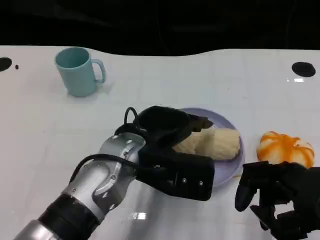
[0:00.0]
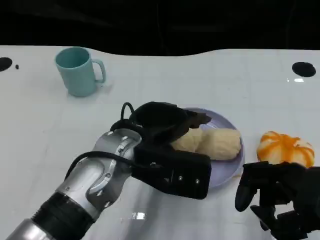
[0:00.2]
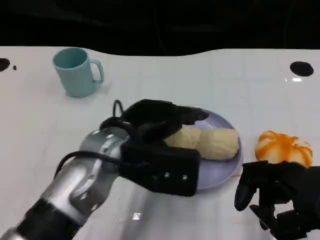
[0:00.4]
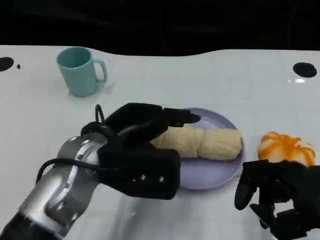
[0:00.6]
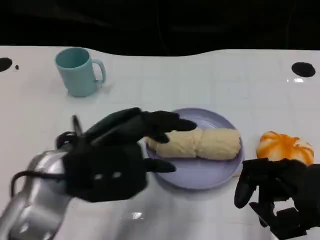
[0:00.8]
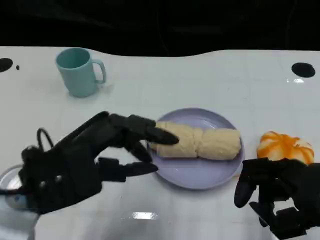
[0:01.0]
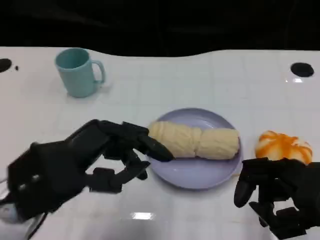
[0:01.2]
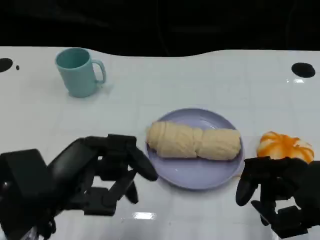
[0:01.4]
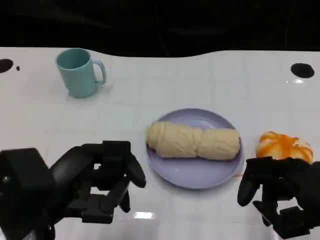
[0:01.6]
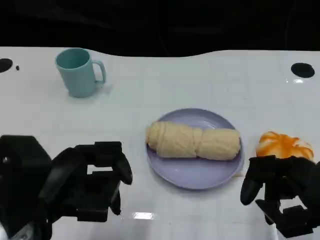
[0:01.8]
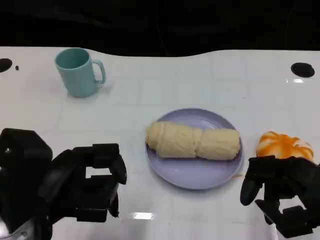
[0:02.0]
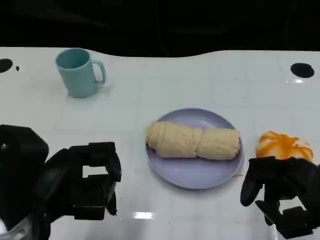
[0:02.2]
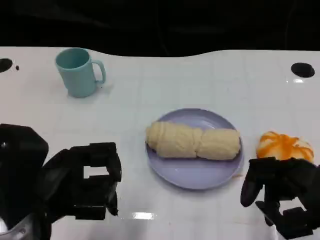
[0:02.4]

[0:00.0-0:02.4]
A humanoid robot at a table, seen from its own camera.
Task of the whole recording: Grasp the towel on the left side of the plate with the left hand and place it into the plate.
0:00.0 to 0:01.2: The left hand heads to the left and backward, covering some 15 cm.

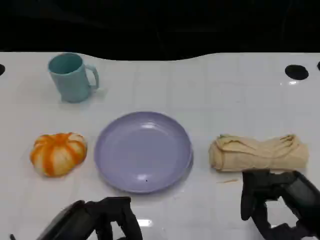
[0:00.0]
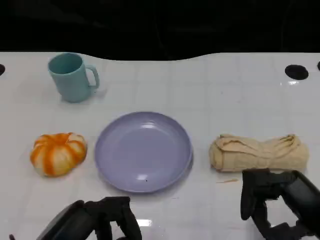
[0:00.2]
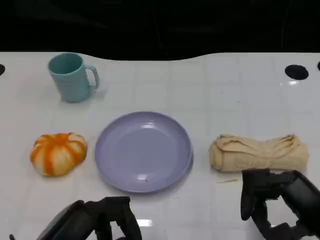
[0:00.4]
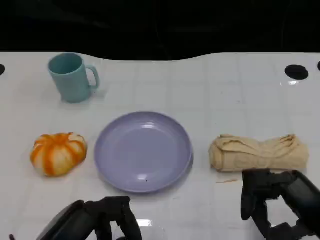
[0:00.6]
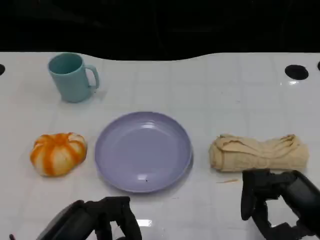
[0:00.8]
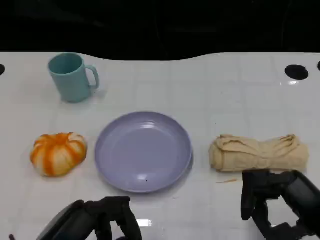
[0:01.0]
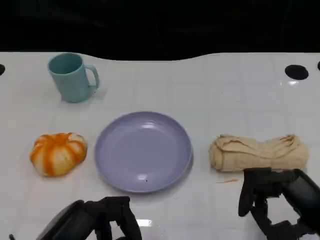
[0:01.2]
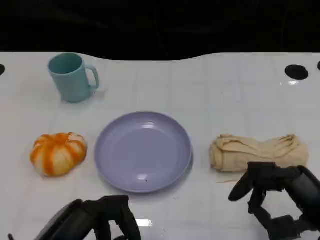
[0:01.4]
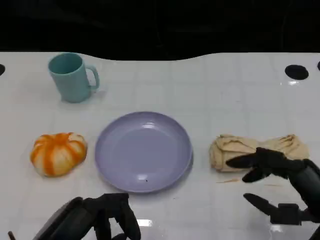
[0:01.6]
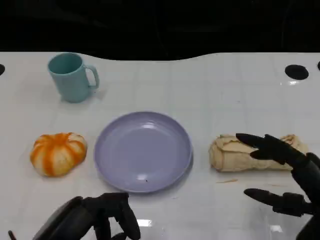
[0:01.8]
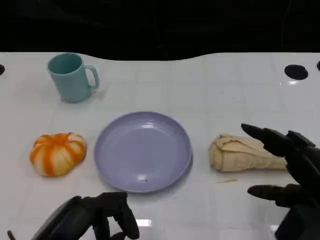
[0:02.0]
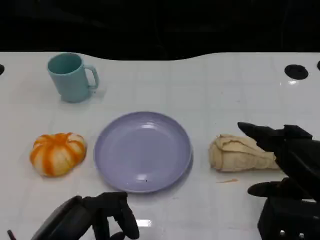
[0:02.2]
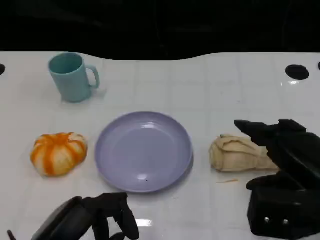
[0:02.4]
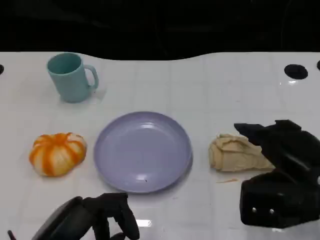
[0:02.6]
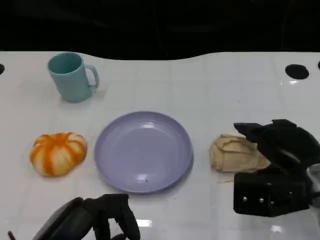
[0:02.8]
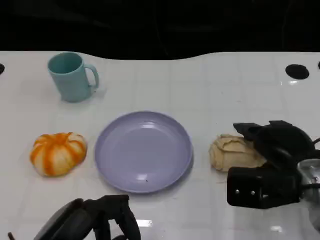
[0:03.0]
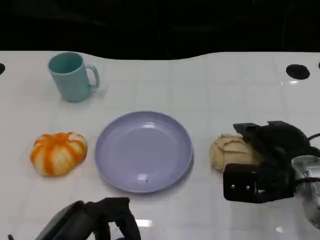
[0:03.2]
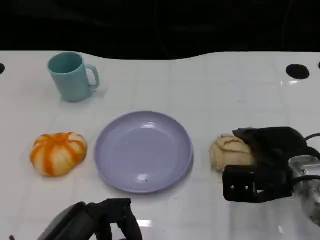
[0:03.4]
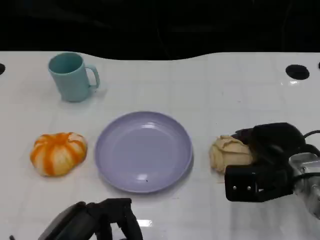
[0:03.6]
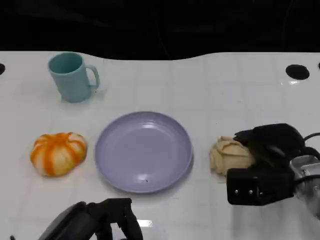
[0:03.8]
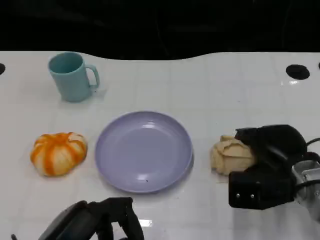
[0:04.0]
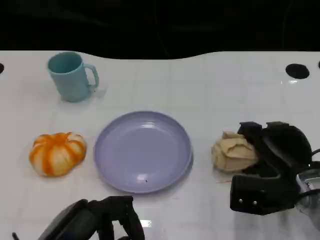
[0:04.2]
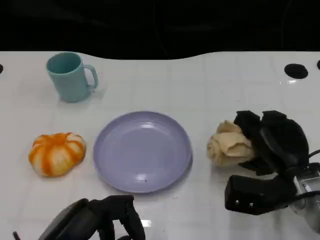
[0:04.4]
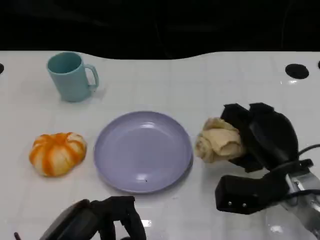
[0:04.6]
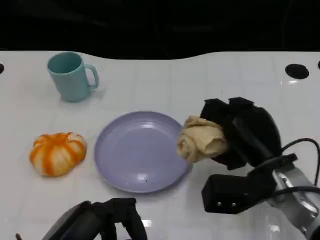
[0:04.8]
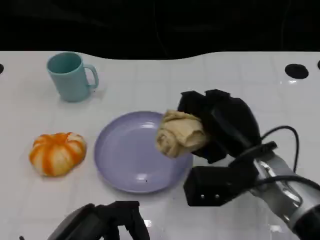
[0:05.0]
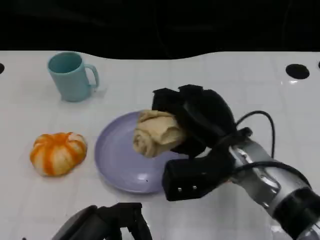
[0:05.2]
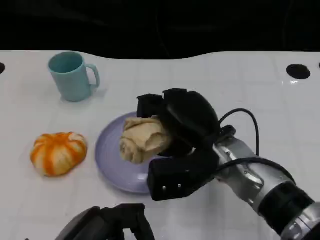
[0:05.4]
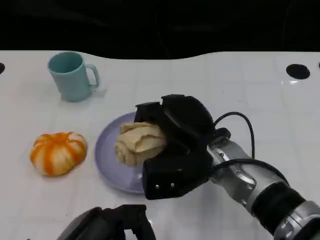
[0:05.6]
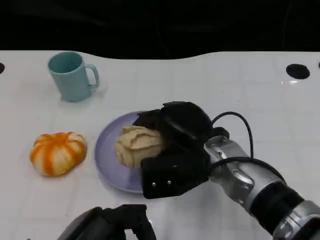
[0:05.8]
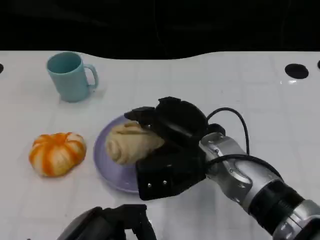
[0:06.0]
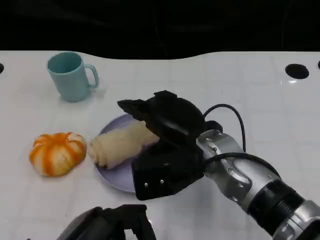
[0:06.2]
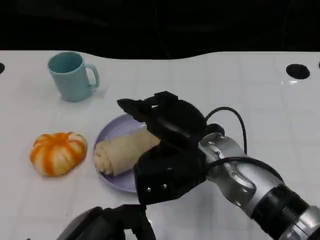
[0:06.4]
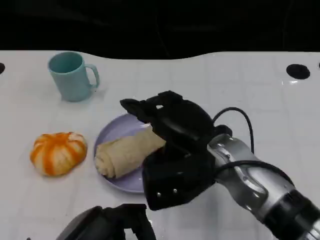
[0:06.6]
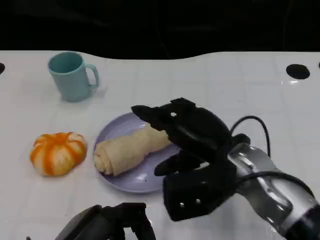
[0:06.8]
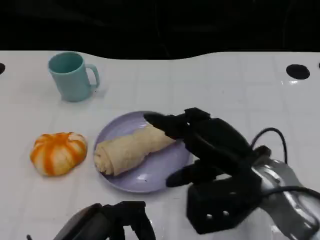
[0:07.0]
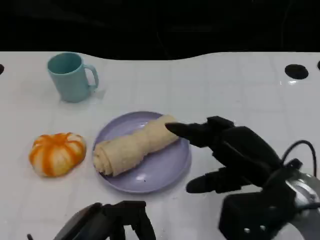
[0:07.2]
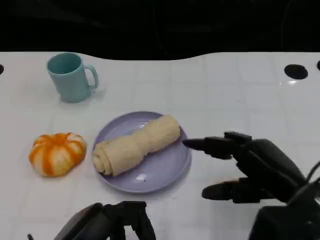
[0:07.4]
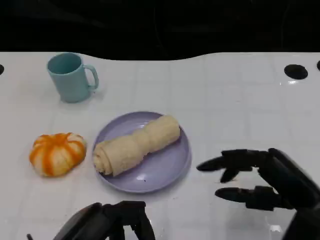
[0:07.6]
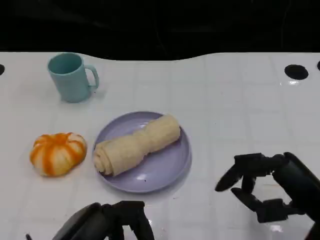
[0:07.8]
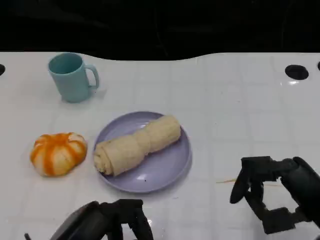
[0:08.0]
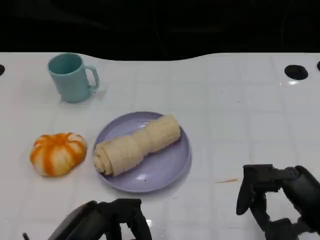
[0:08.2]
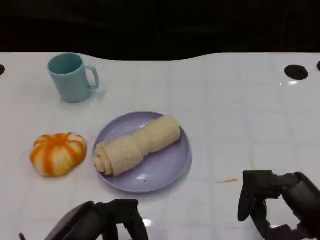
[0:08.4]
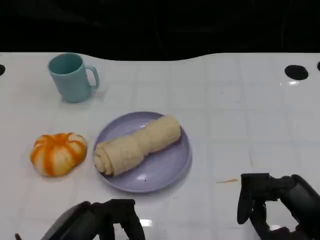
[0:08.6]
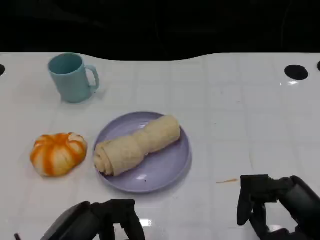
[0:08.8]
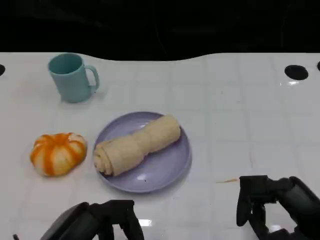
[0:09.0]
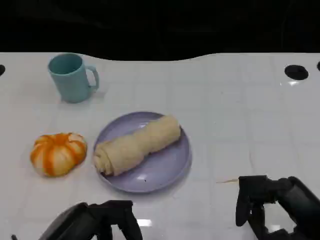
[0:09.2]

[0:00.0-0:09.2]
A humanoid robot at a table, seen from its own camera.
Task of the whole recording: Grasp the towel on the left side of the plate with the left hand and place it into the plate.
0:00.0 to 0:01.6: The hands make only small movements.
0:01.6 to 0:03.0: The right hand shifts some 10 cm forward.
0:04.6 to 0:06.2: The right hand moves to the left and upward, roughly 15 cm.
0:06.2 to 0:07.6: The right hand goes some 20 cm to the right and backward.
0:07.6 to 0:09.2: The hands move only a little.
